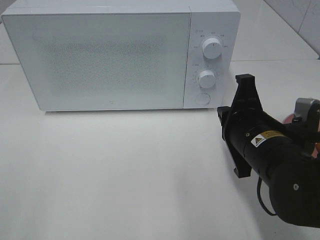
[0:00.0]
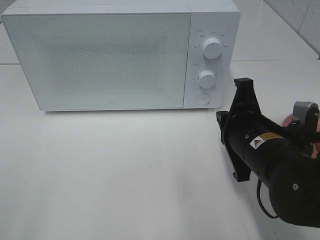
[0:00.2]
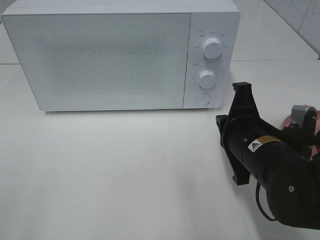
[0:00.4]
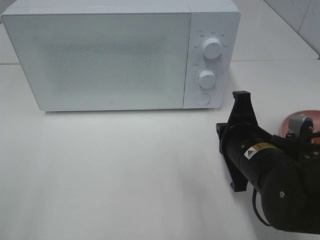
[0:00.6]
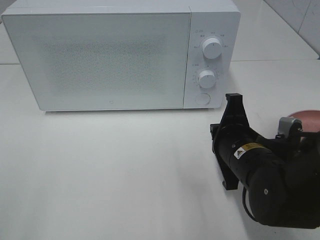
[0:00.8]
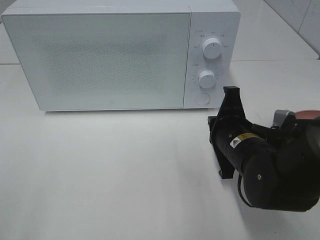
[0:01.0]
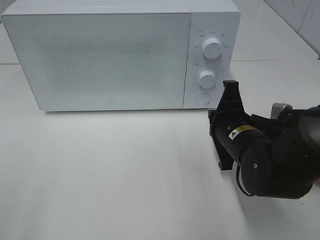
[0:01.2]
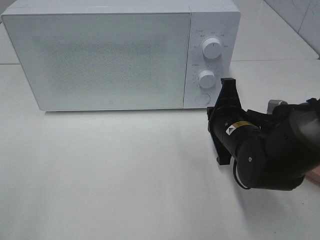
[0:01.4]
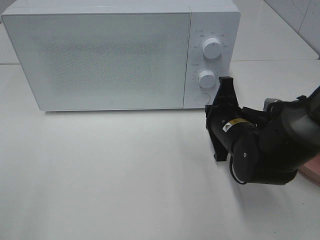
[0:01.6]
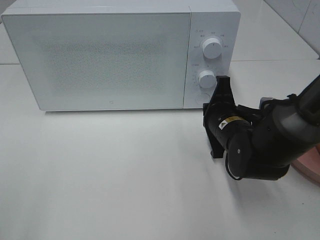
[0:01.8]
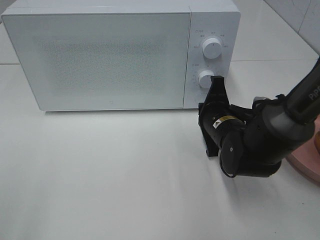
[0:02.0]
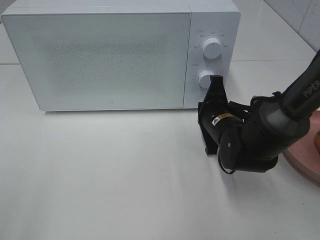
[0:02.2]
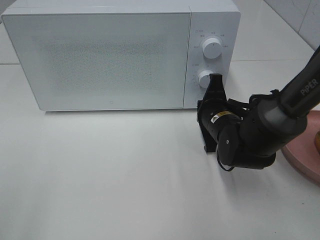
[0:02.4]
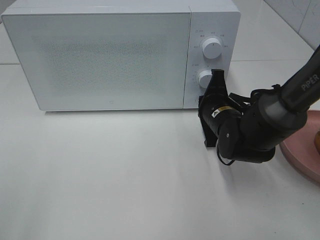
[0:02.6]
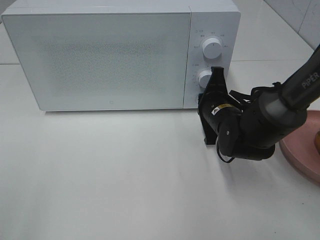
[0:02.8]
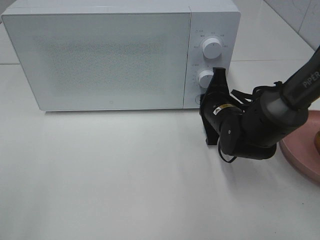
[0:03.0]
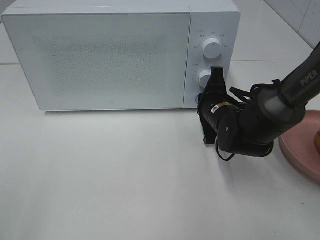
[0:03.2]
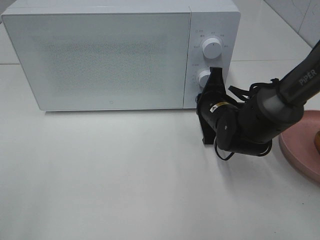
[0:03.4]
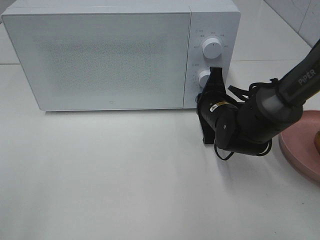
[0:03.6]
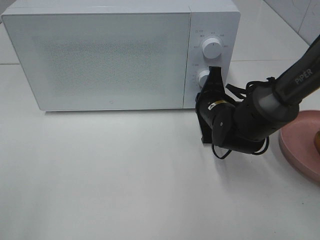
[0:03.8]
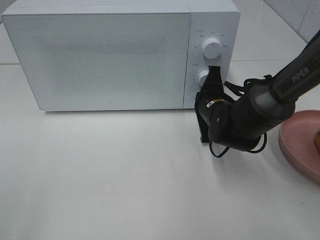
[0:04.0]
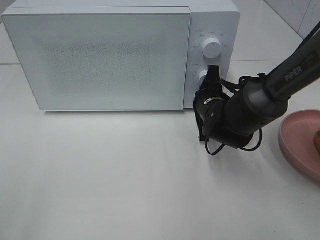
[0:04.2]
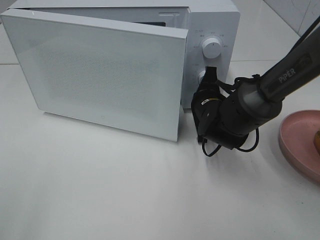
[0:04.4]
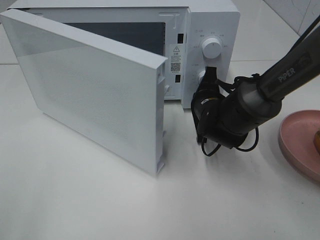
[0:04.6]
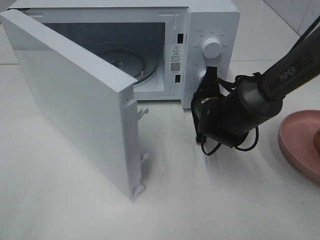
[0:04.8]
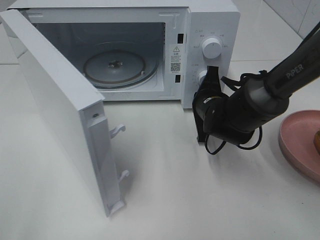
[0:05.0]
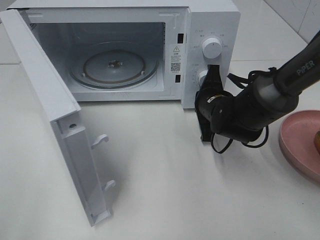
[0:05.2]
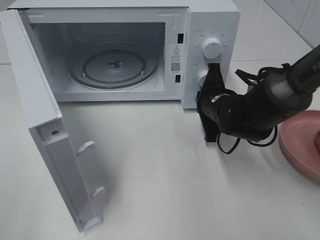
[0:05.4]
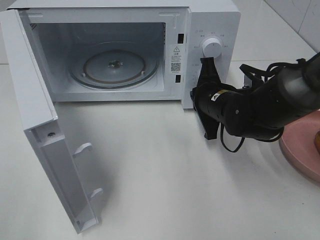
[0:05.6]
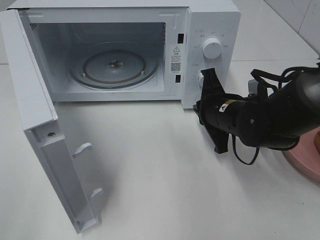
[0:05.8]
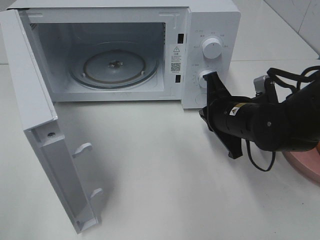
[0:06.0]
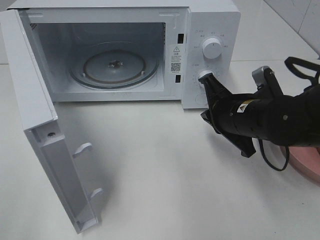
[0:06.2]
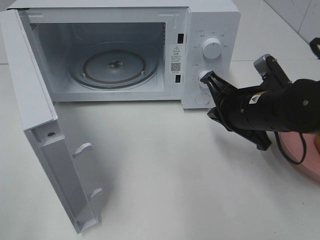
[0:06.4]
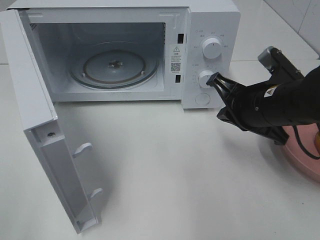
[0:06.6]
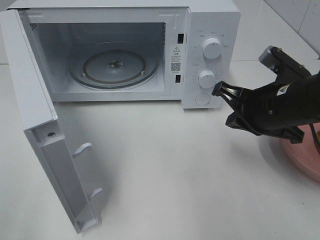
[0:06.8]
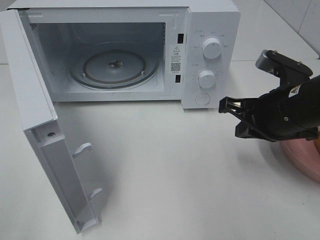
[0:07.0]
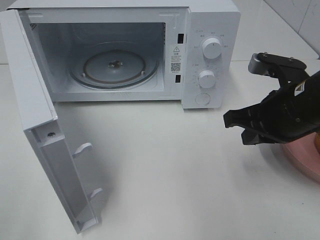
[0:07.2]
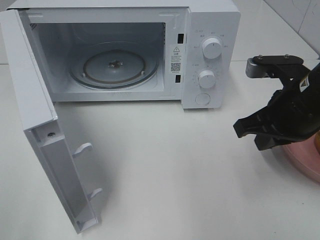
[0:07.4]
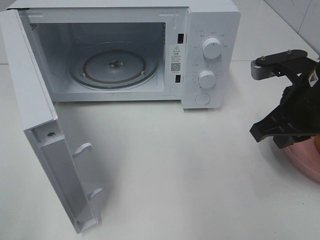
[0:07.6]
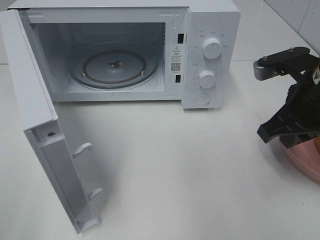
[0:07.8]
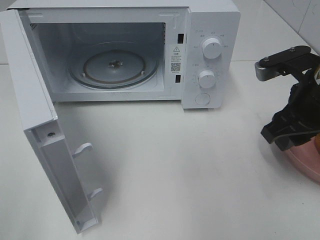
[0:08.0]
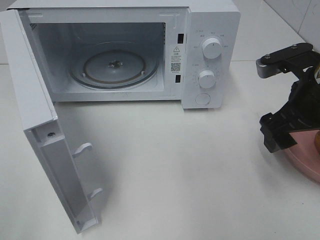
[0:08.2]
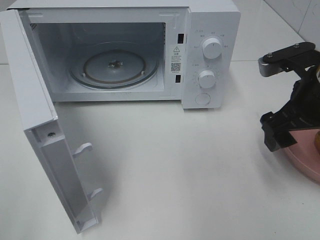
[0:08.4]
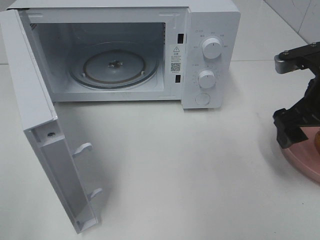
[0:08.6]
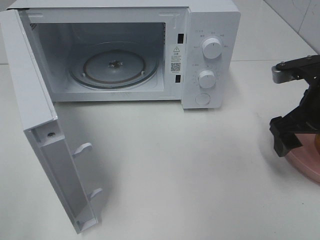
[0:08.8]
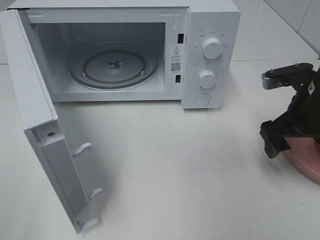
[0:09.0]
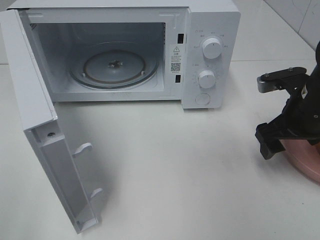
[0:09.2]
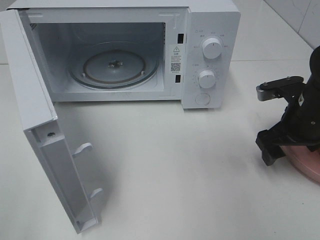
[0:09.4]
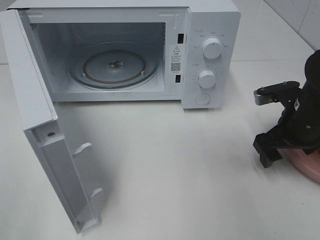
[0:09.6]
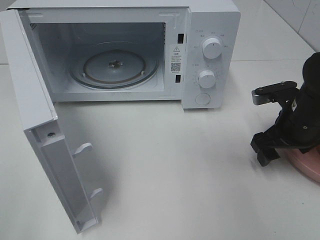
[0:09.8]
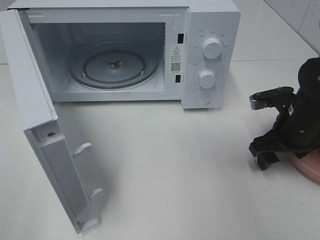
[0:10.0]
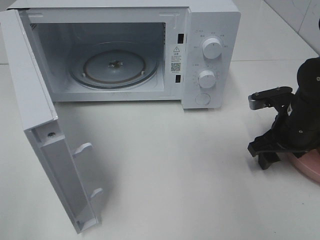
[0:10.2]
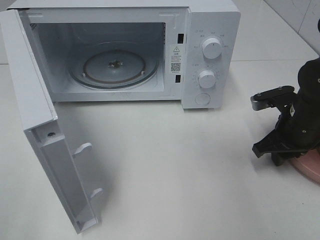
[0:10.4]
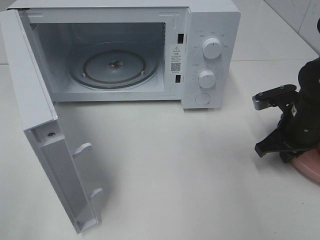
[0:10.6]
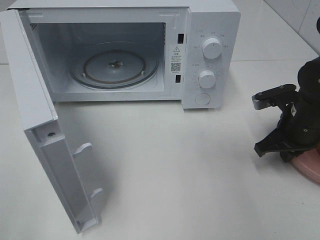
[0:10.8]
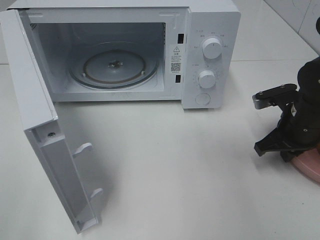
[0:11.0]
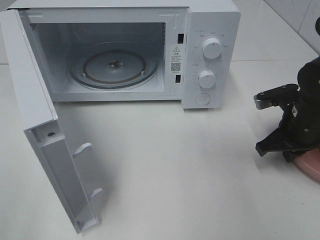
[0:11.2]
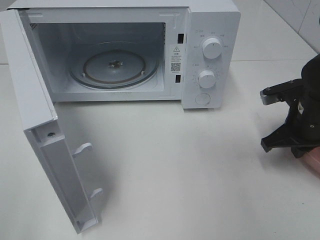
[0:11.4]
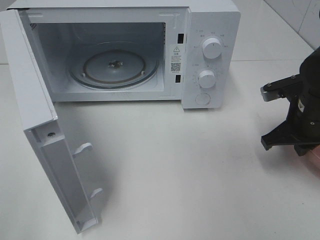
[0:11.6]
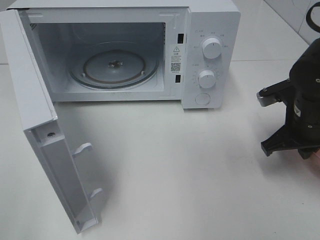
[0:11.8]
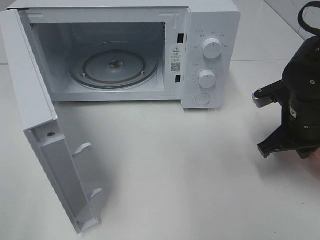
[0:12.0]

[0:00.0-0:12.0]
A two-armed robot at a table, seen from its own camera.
Task of the whole recording: Heat the burger.
Step, 0:00.0 to 0:05.4: Right hand: press the switch.
Step, 0:05.6 to 0:11.2: Right hand: grab the plate with the hamburger.
0:00.0 to 0:01.6: The right gripper travels forward and downward by approximately 10 cm.
0:01.6 to 0:03.0: The right gripper moves forward, about 5 cm.
0:03.0 to 0:04.4: There are only small adjustments of the grippers.
0:04.4 to 0:06.0: The right gripper shifts roughly 5 cm backward.
0:06.0 to 0:07.6: The right gripper shifts roughly 10 cm upward and to the right.
0:07.6 to 0:09.0: The right gripper shifts by about 5 cm, and opens.
0:09.0 to 0:10.4: The right gripper goes about 5 cm downward, and closes up.
0:10.4 to 0:12.0: The right gripper closes its fingers.

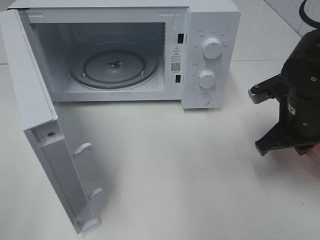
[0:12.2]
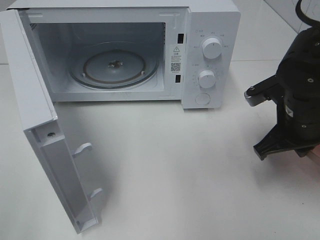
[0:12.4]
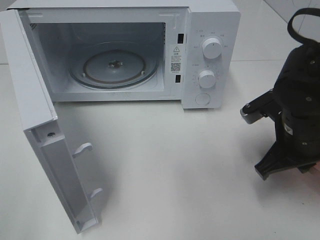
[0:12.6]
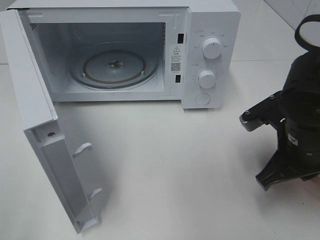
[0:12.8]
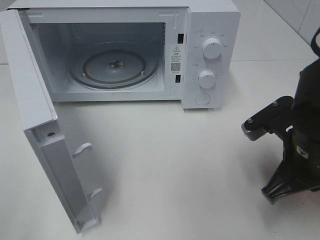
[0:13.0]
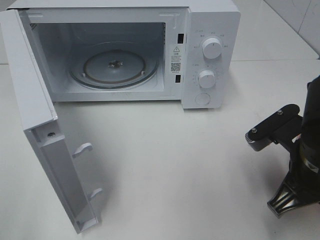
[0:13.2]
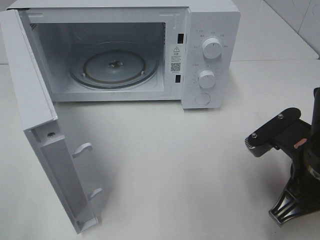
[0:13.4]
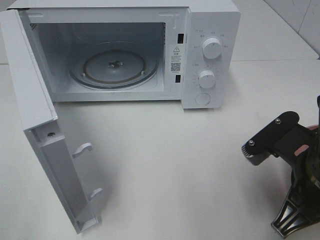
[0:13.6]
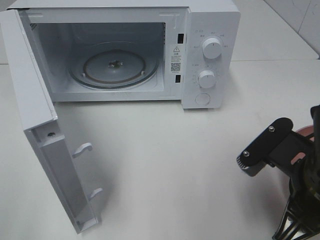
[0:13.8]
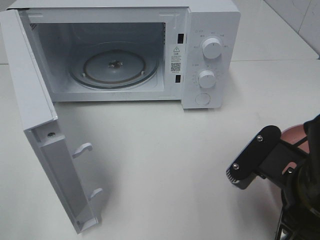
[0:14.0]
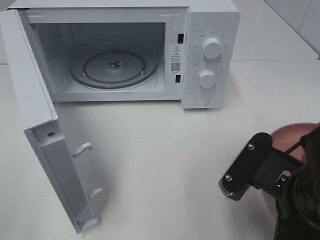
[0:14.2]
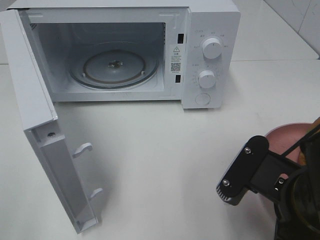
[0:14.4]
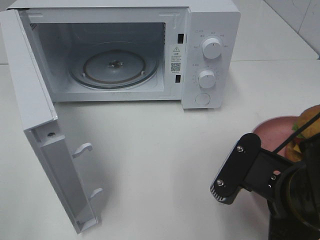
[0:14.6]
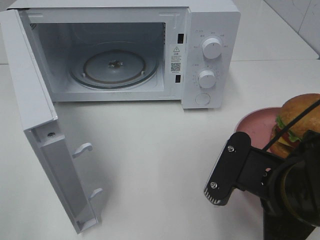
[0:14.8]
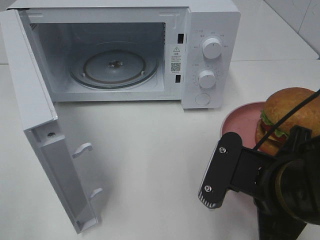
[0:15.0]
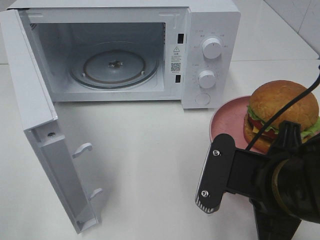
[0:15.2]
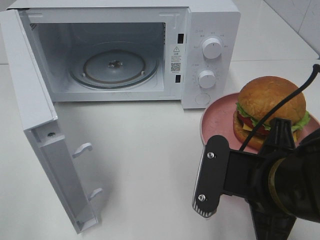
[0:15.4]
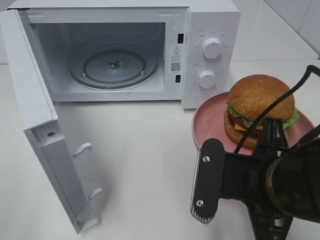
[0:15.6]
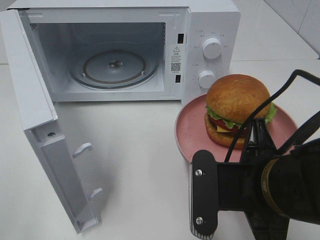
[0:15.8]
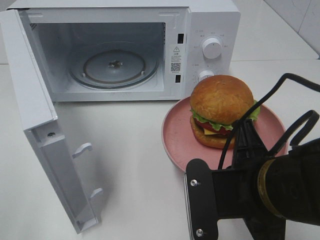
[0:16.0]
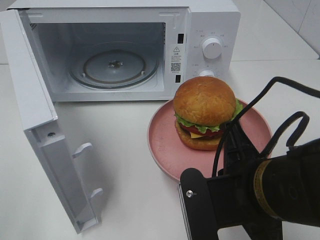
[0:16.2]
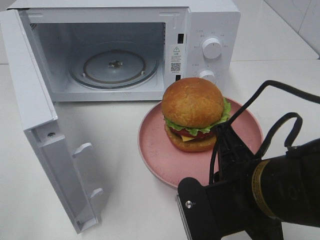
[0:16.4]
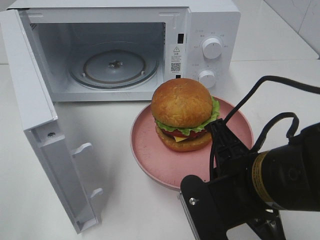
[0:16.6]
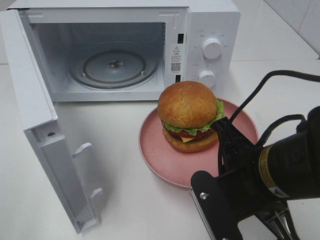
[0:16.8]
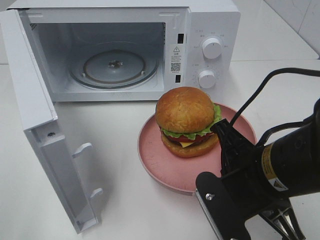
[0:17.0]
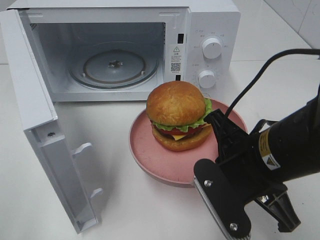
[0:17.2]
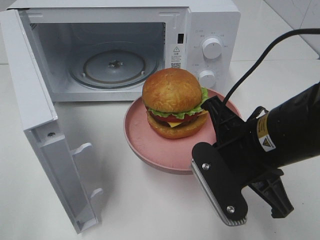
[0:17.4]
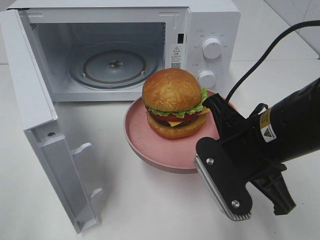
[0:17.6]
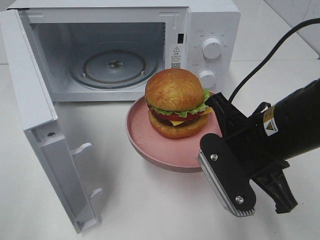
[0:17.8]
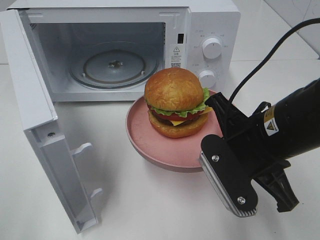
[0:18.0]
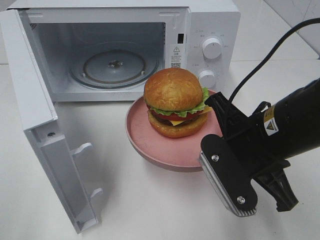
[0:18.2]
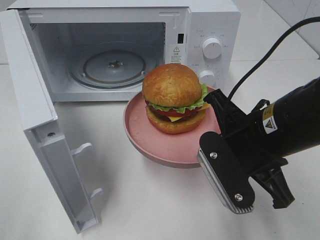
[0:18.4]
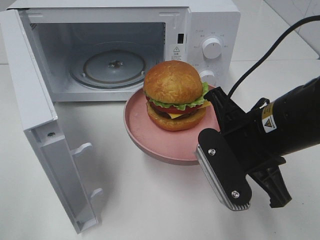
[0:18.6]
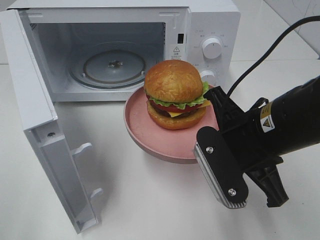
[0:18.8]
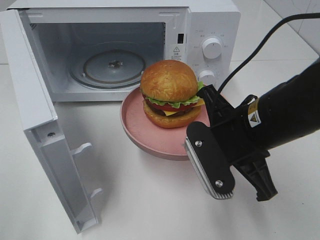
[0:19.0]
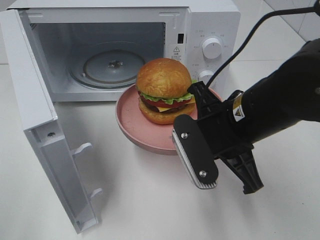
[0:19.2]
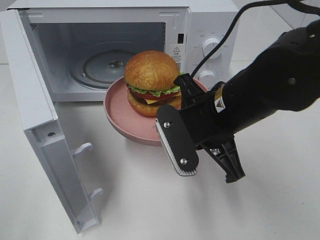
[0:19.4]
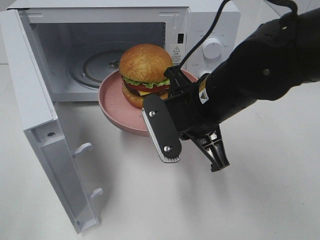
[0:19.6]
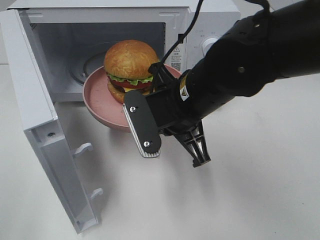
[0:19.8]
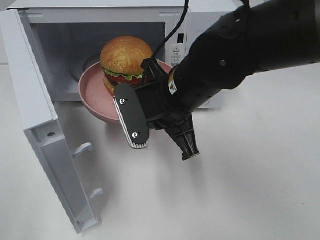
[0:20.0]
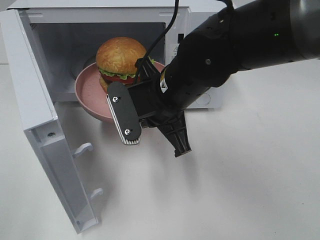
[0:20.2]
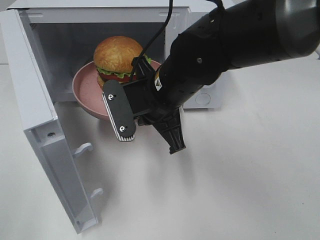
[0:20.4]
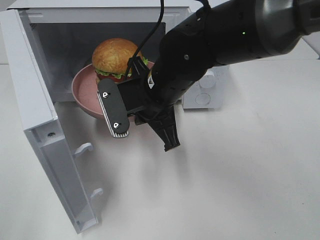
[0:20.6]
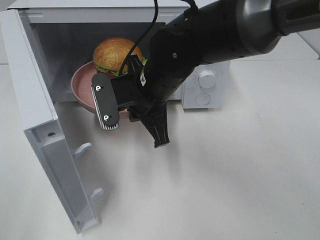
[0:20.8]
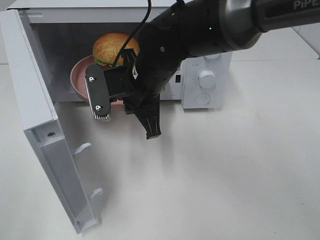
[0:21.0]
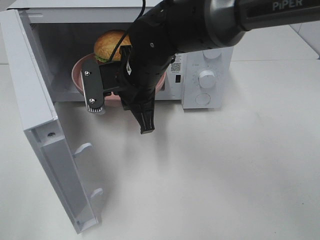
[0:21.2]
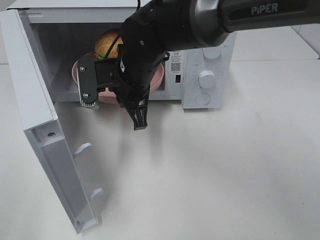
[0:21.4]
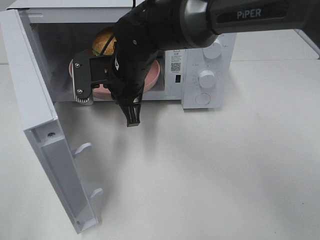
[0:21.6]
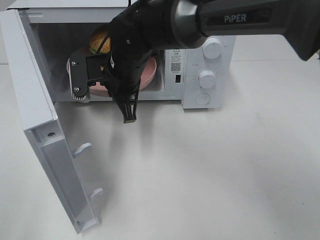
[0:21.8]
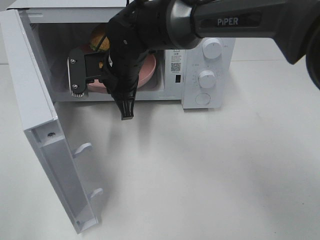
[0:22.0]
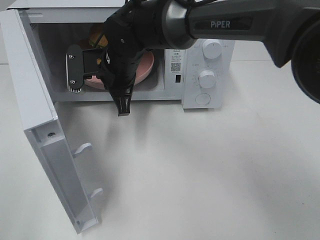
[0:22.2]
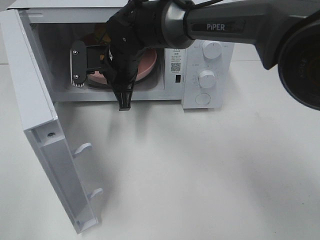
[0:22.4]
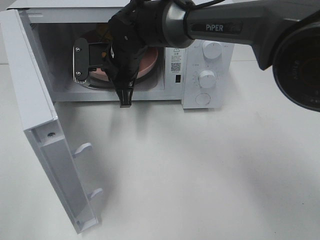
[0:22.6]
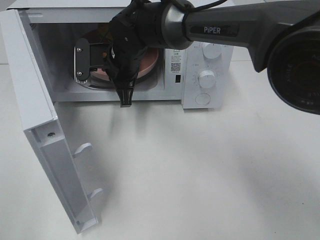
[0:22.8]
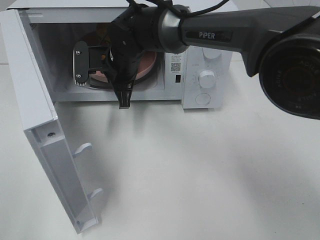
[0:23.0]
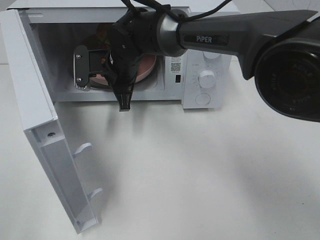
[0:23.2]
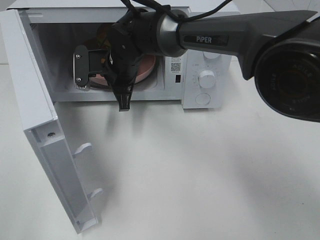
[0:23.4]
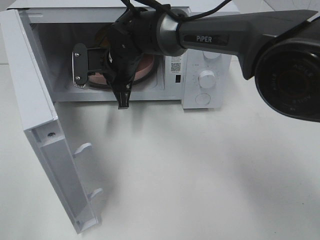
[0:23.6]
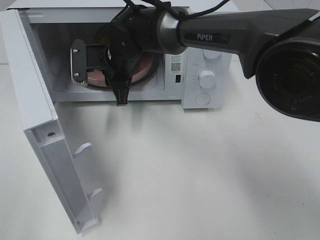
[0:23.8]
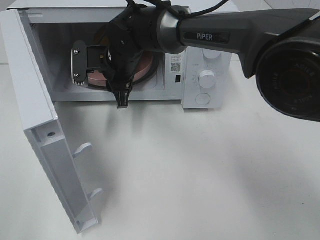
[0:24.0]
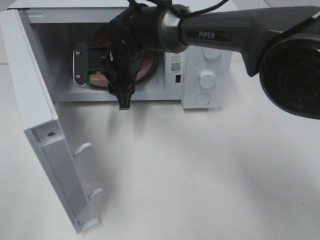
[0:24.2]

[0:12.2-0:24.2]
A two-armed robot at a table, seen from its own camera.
Task of the whole recording: Heat the burger.
Step, 0:12.2 to 0:23.8: Right hand: place the plate in the microwave.
0:12.2 to 0:13.8: The right gripper heads backward, covering approximately 15 cm.
0:16.6 to 0:18.2: The right gripper travels forward by approximately 5 cm.
0:18.2 to 0:19.8: The right gripper is displaced to the left and forward by roughly 10 cm.
0:19.8 to 0:21.2: The right gripper moves forward and to the left, about 10 cm.
0:21.2 to 0:22.6: The right gripper goes approximately 5 cm forward.
0:22.6 to 0:24.2: The right gripper opens its fingers.
